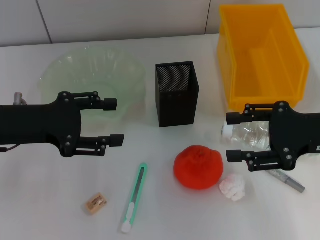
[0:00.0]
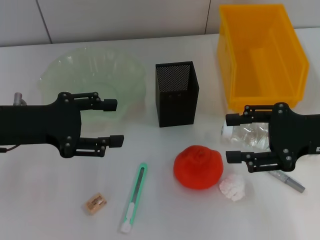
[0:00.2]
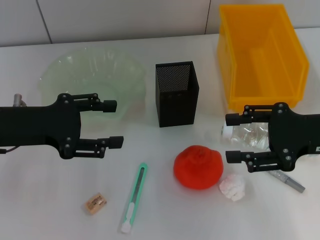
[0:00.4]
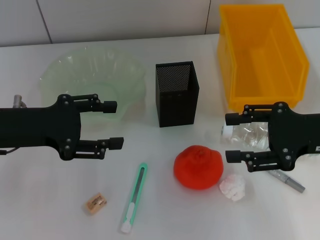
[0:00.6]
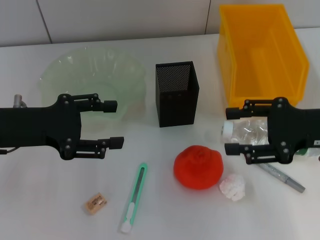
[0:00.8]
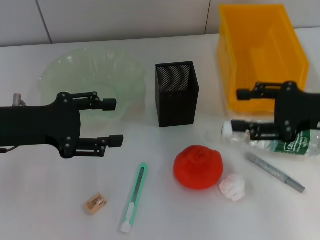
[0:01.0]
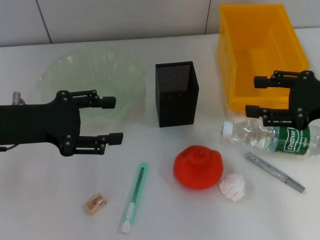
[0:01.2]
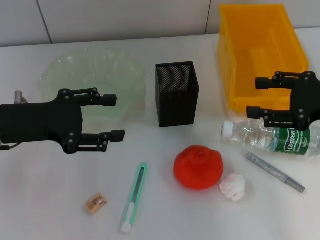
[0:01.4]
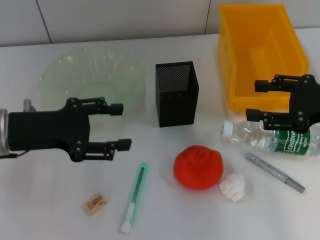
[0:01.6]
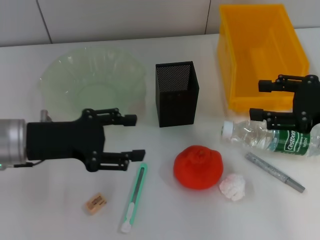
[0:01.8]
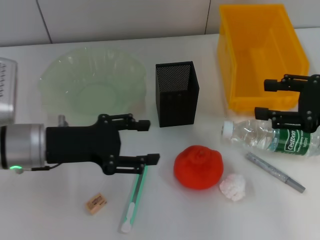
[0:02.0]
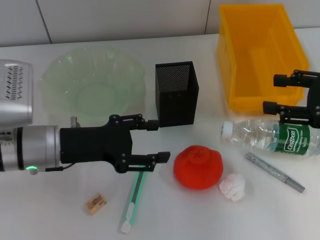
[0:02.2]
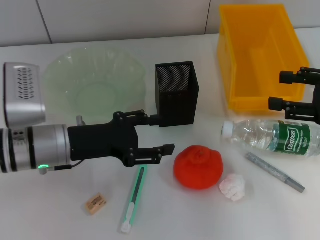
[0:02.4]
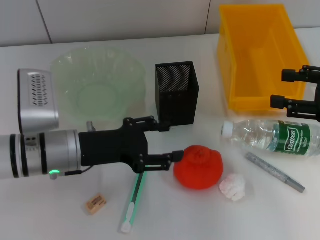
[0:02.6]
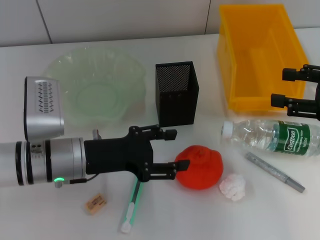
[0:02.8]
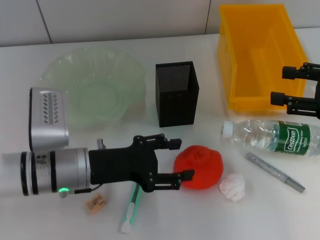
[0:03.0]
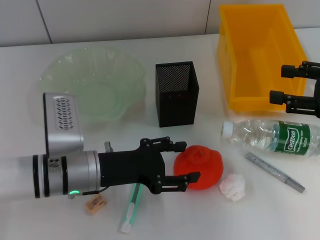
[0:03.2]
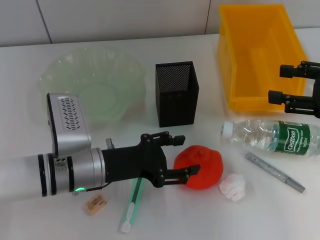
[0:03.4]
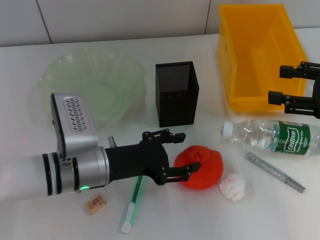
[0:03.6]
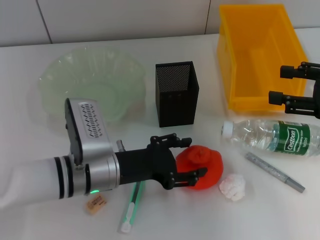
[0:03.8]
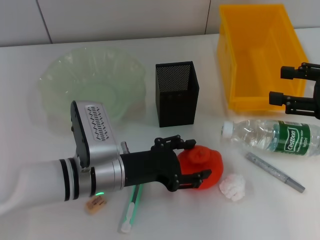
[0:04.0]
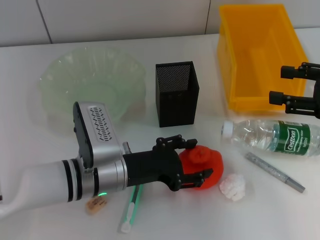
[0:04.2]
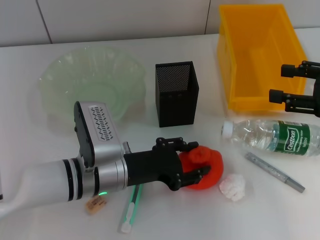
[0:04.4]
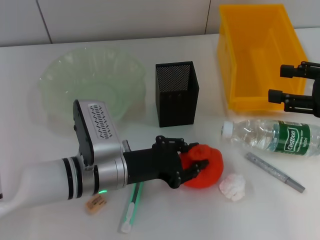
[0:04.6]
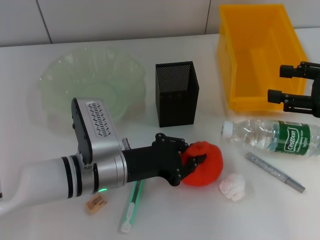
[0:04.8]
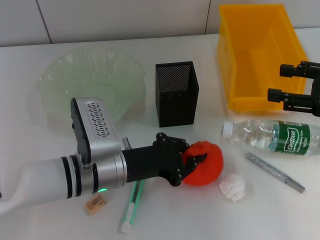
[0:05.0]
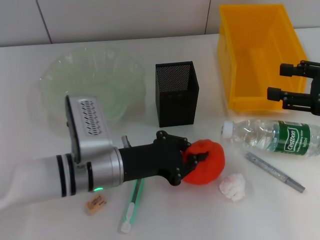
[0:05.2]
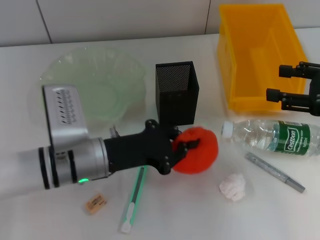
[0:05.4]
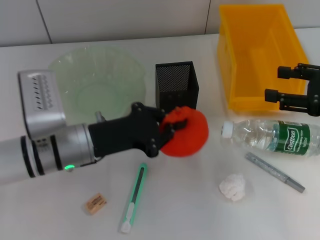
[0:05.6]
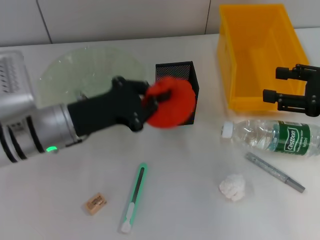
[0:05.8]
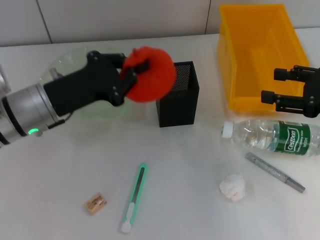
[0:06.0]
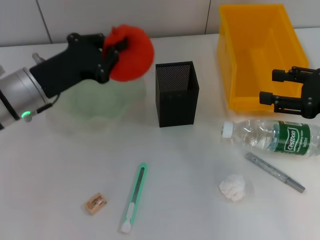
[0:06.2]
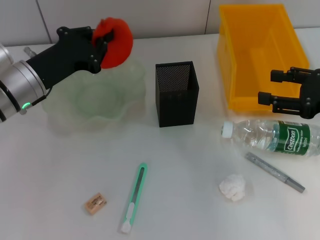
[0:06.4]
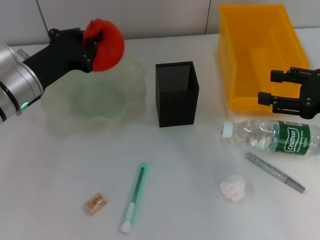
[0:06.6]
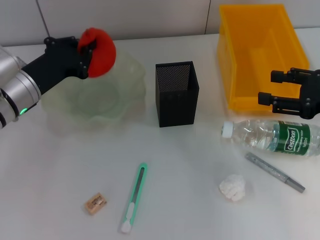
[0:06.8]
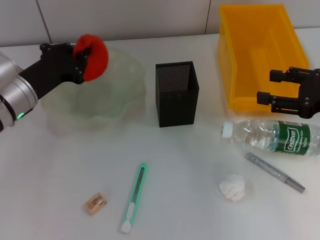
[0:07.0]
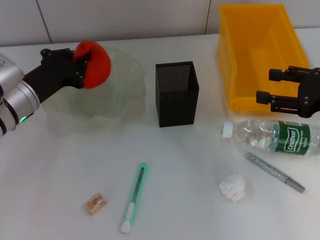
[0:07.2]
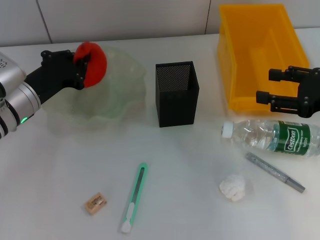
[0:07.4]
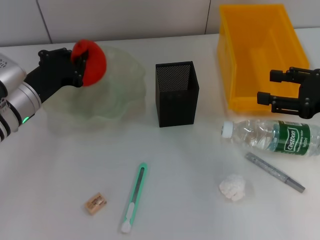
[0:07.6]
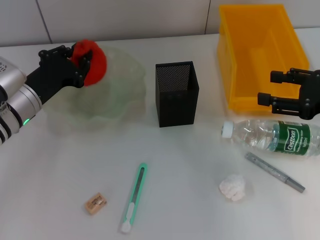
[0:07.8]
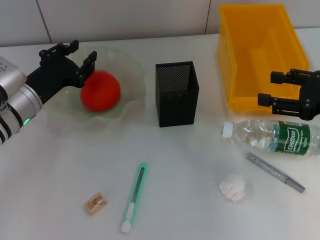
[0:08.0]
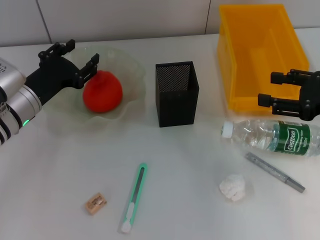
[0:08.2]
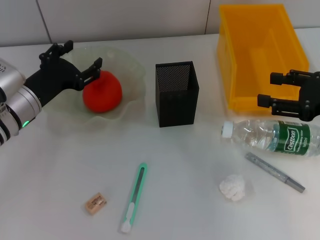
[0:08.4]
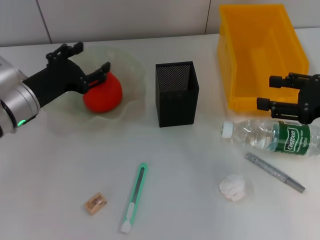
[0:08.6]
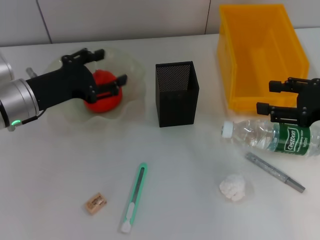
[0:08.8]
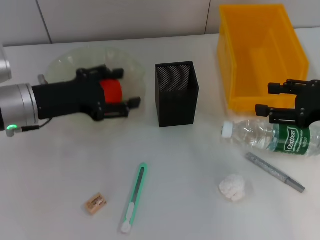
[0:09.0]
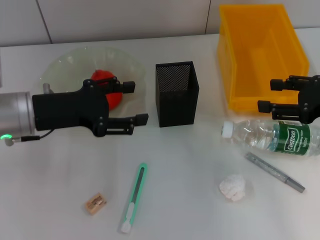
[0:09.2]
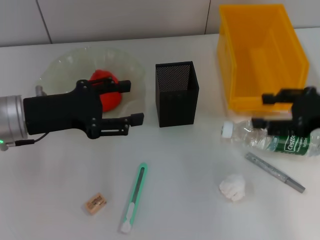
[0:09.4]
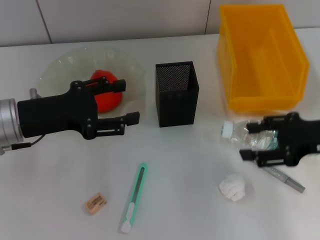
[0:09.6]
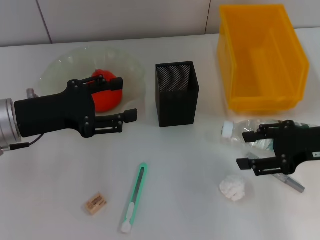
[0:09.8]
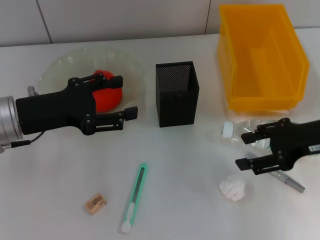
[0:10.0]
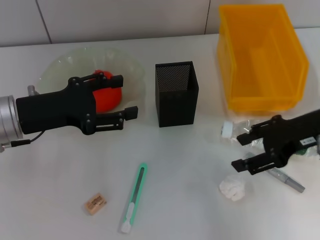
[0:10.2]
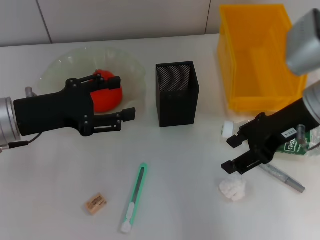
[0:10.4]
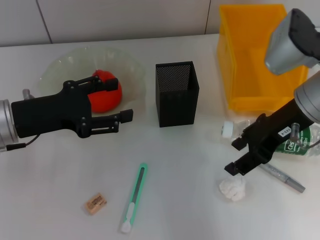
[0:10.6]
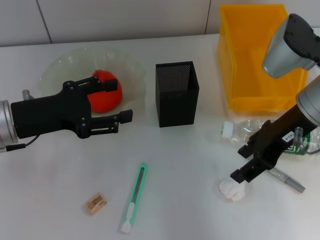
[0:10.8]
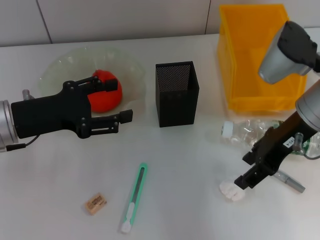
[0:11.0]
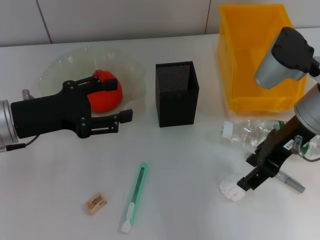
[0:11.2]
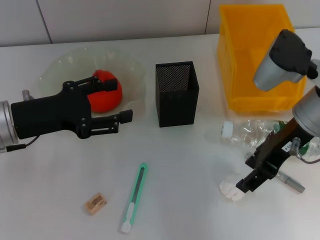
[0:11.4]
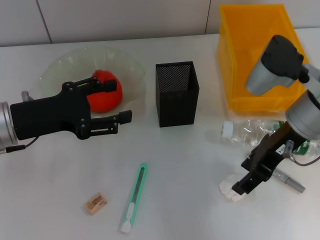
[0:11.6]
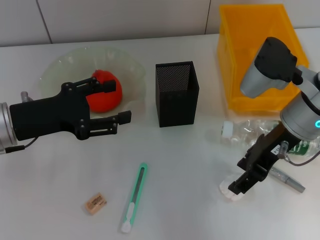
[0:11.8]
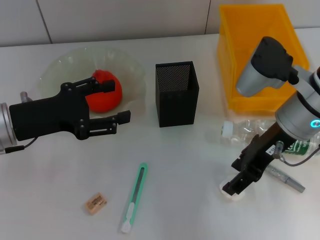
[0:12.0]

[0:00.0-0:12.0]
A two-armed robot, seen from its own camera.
Step, 0:00.0 to 0:05.0: Grab the orange with the left hand.
Step, 0:05.2 to 0:08.2: Place the orange into the fruit bowl with the left hand.
0:00.0 to 0:01.6: The grippers move only a little.
0:01.6 to 0:03.0: The left gripper heads to the right and downward, covering some 10 cm.
0:03.0 to 0:04.4: The left gripper shifts by roughly 5 cm.
0:04.4 to 0:06.0: The left gripper goes about 10 cm to the left, upward and forward, and closes its fingers.
0:06.0 to 0:07.6: The left gripper moves about 5 cm.
0:07.6 to 0:09.0: The left gripper changes place by some 5 cm, and opens its fingers.
0:09.0 to 0:10.4: The right gripper goes roughly 10 cm to the left.
0:10.4 to 0:12.0: The grippers stay close to where they were, moving slightly.

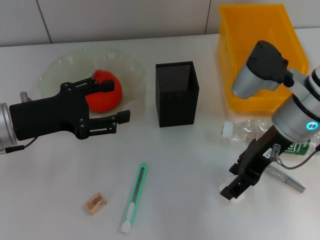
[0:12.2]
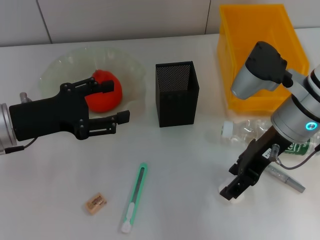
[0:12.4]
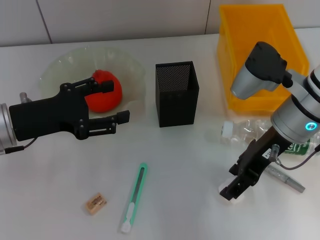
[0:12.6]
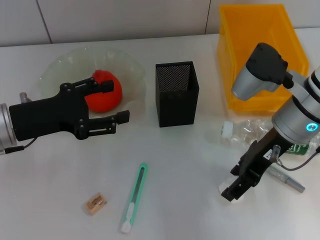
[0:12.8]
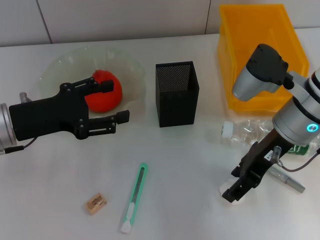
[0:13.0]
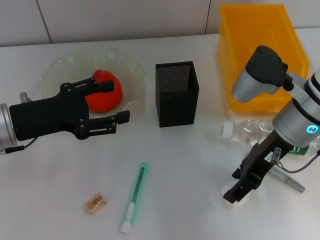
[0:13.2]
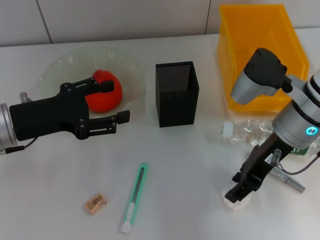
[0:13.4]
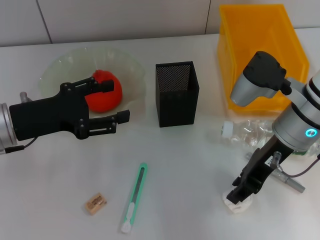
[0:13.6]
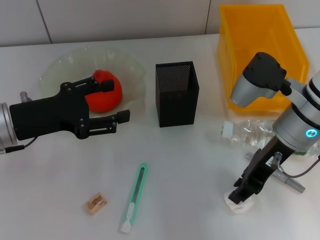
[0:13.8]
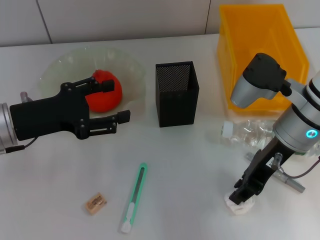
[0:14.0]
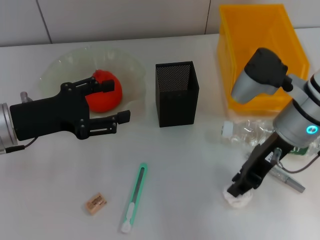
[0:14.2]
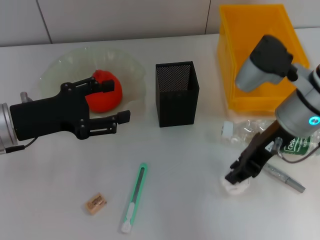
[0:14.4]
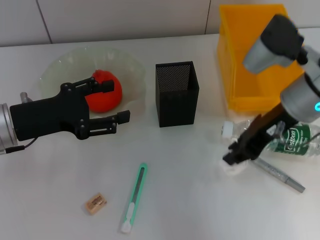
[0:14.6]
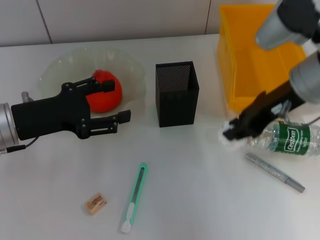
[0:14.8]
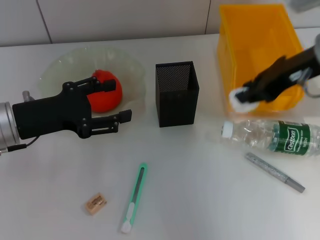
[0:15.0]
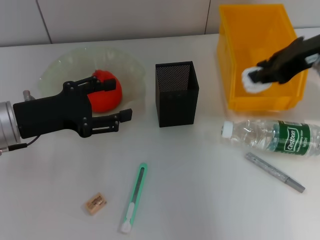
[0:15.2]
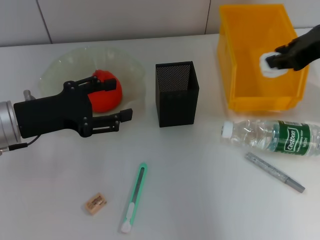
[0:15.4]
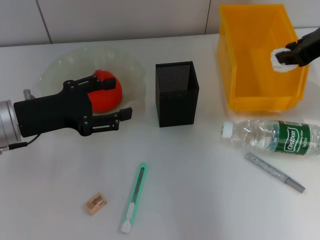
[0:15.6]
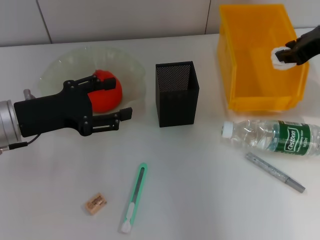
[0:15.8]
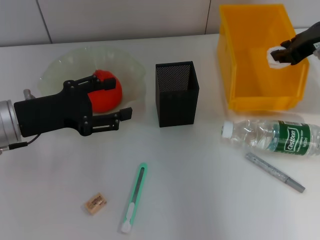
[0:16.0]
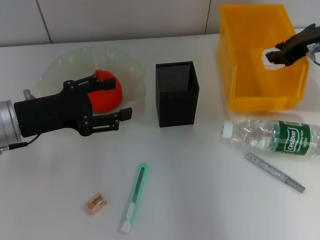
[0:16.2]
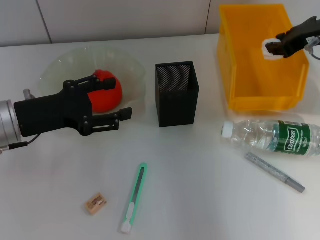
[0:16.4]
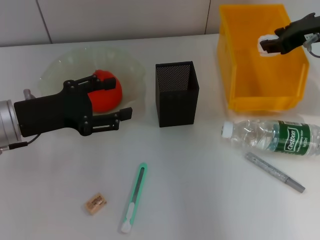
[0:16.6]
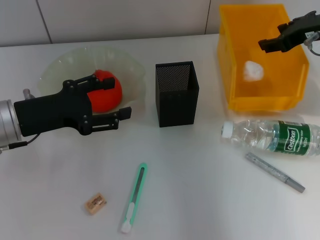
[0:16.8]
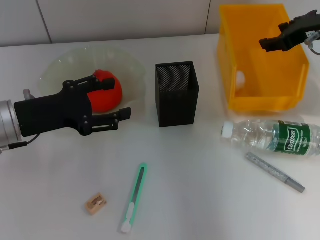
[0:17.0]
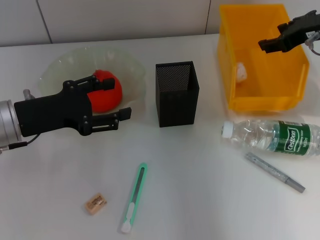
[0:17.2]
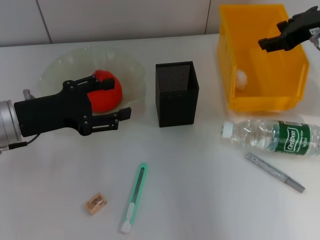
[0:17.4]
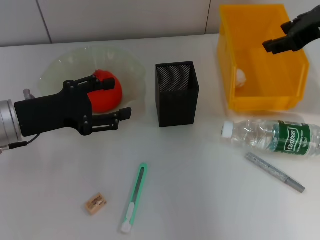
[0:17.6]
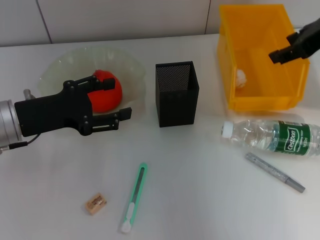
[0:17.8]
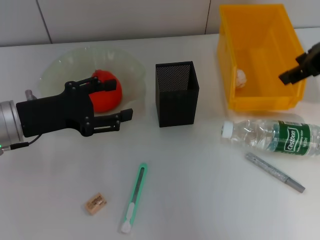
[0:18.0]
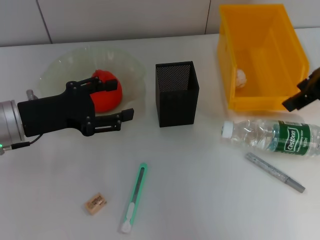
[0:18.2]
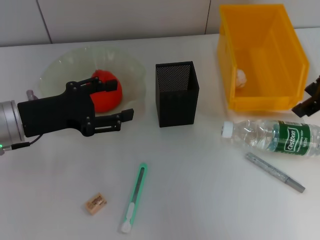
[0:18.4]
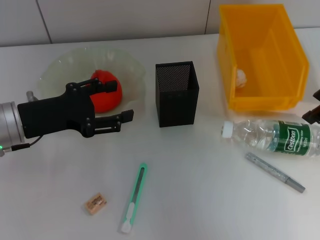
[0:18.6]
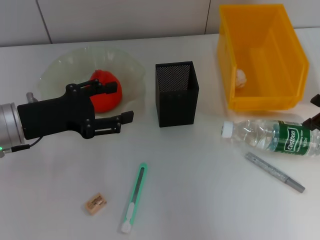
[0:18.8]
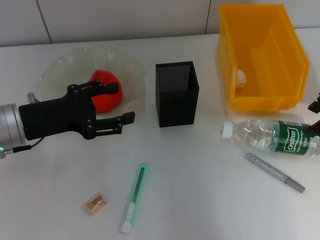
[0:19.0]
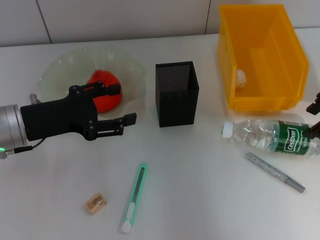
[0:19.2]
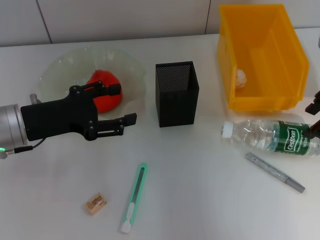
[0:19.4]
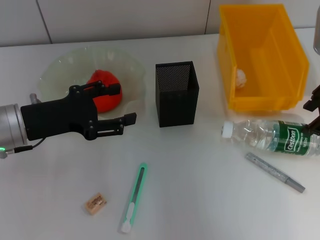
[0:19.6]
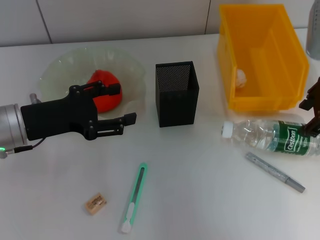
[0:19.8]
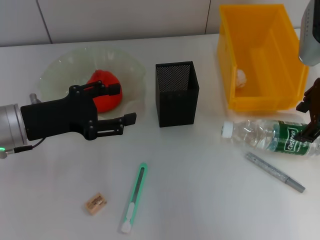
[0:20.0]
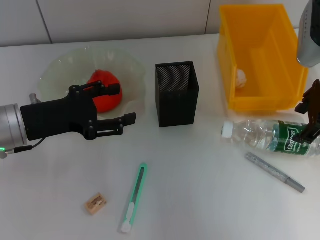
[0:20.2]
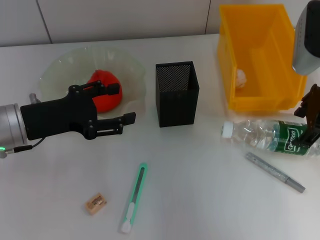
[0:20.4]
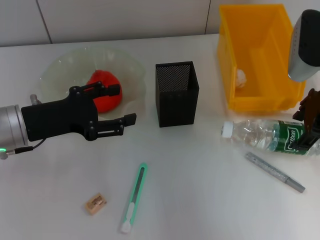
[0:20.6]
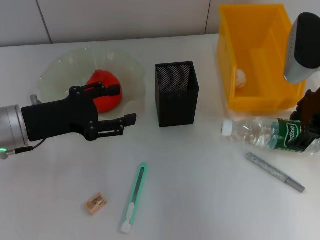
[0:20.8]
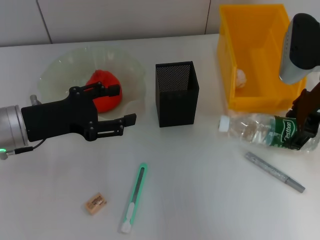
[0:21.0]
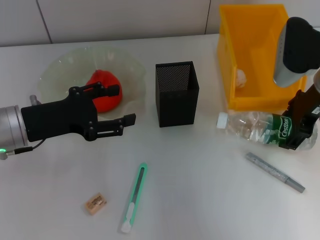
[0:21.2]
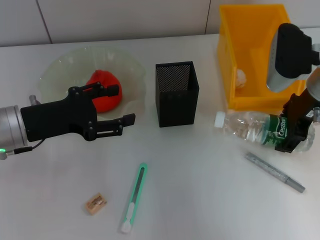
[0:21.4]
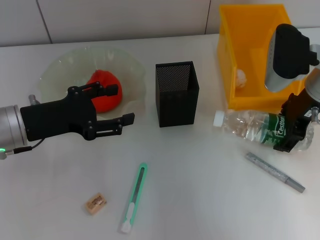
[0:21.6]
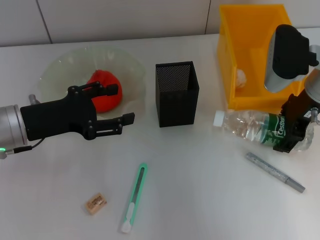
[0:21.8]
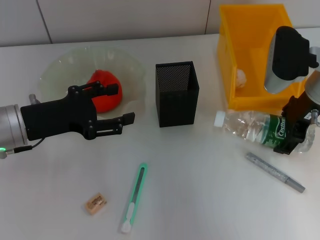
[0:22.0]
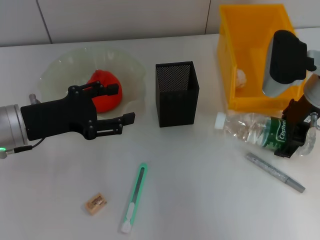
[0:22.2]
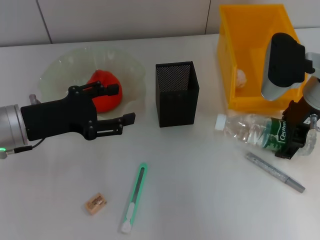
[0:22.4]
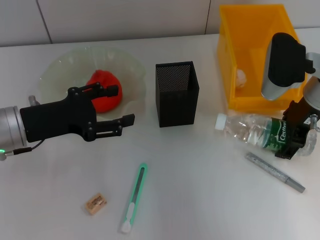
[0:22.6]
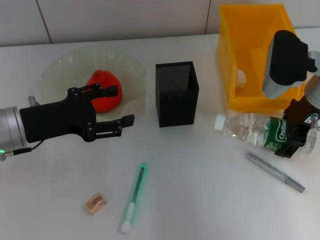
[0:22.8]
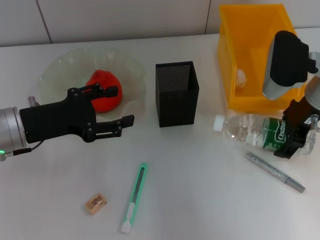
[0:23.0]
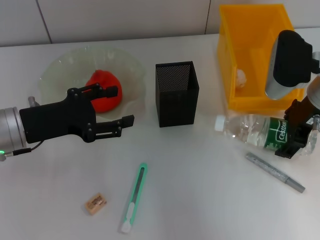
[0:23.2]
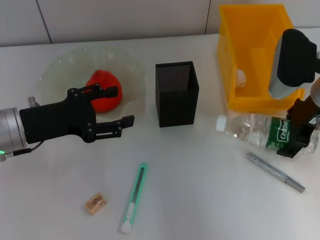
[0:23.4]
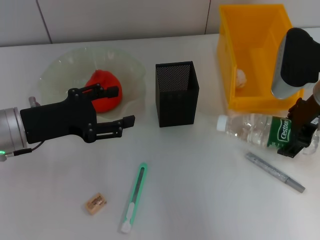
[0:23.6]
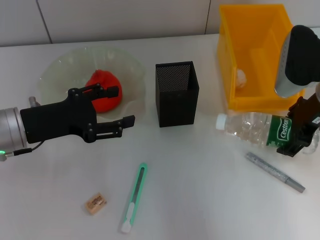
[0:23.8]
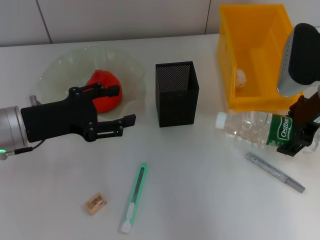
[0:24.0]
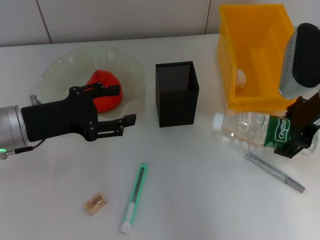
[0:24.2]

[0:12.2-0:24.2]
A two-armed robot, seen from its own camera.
Step, 0:13.8 to 0:17.2: Place the paper ball into the trash can with the right hand.
Step, 0:17.4 to 0:21.2: Grab the water bottle with the right hand.
0:12.2 to 0:13.8: The right gripper closes up.
0:13.8 to 0:15.2: The right gripper goes some 15 cm upward and to the right.
0:15.2 to 0:16.6: The right gripper goes some 5 cm forward.
0:16.6 to 0:18.2: The right gripper goes approximately 10 cm upward and backward, and opens up.
0:18.2 to 0:19.8: The right gripper heads downward, covering some 5 cm.
0:19.8 to 0:21.2: The right gripper moves roughly 5 cm.
0:21.2 to 0:24.2: There are only small adjustments of the grippers.
